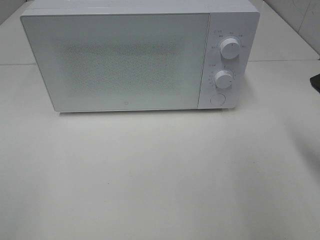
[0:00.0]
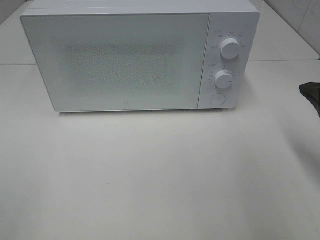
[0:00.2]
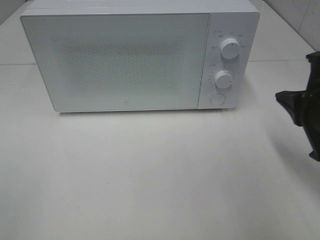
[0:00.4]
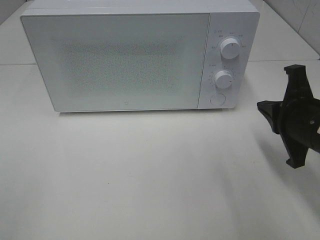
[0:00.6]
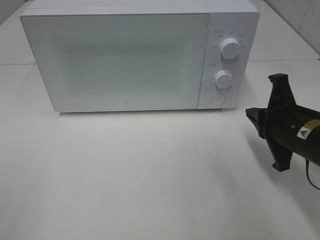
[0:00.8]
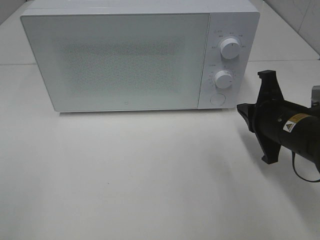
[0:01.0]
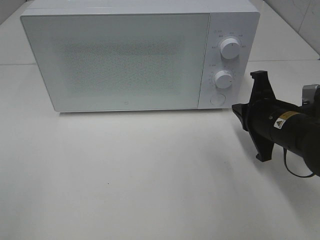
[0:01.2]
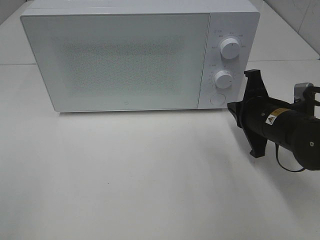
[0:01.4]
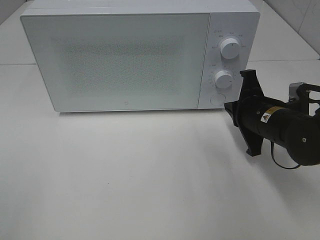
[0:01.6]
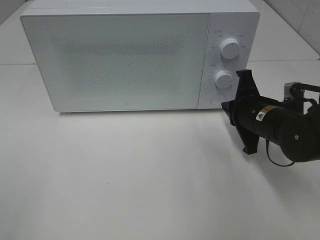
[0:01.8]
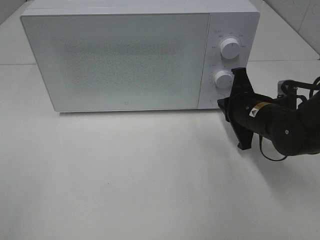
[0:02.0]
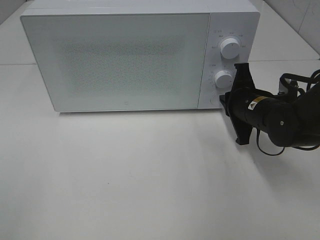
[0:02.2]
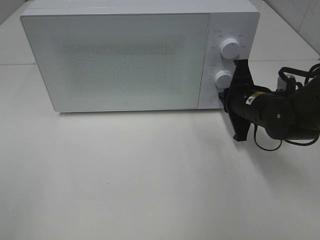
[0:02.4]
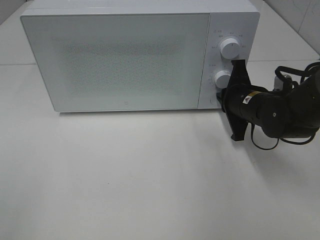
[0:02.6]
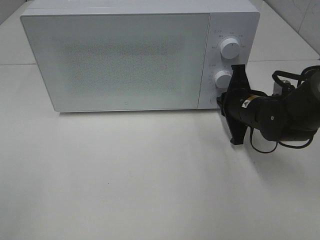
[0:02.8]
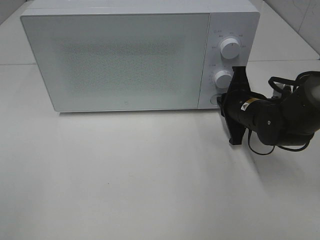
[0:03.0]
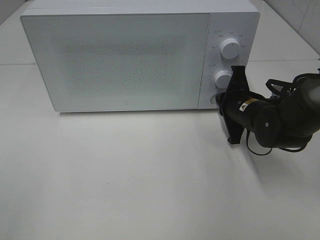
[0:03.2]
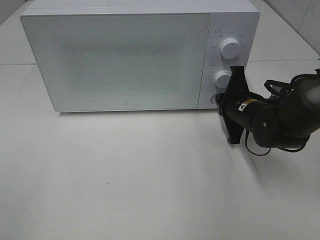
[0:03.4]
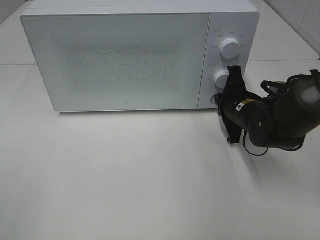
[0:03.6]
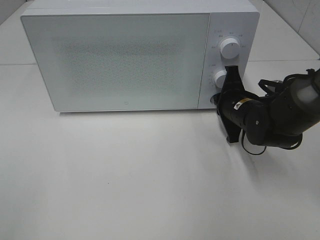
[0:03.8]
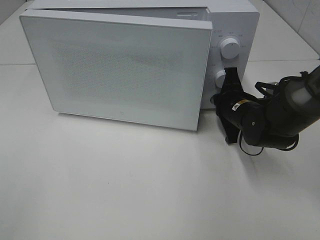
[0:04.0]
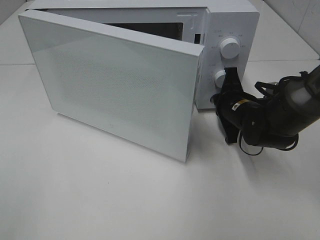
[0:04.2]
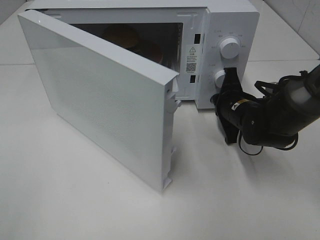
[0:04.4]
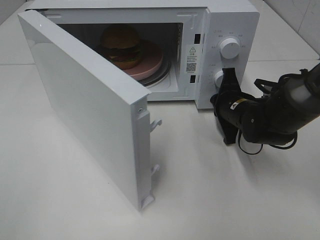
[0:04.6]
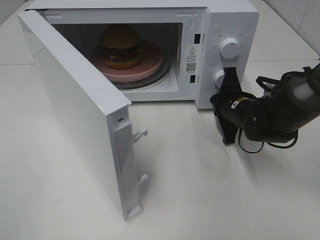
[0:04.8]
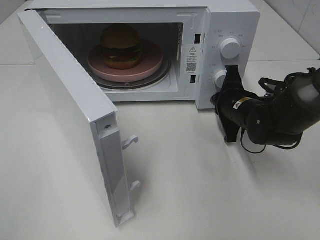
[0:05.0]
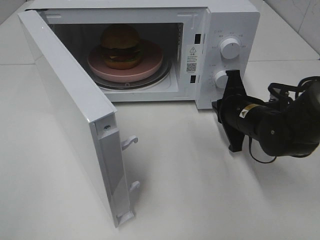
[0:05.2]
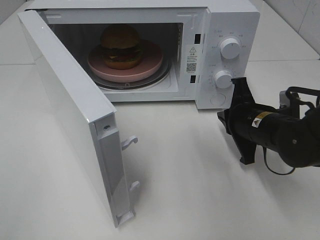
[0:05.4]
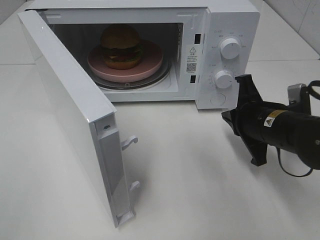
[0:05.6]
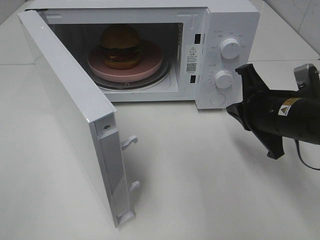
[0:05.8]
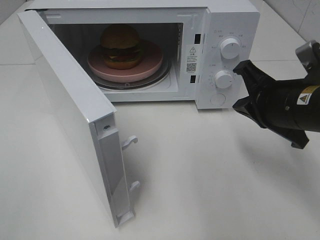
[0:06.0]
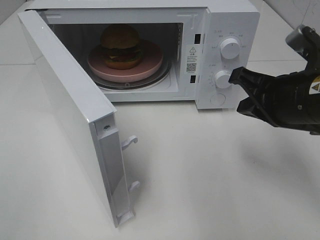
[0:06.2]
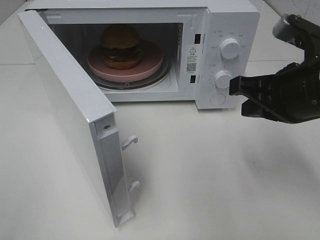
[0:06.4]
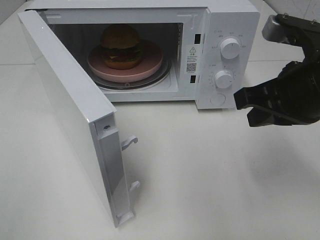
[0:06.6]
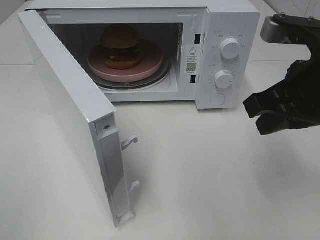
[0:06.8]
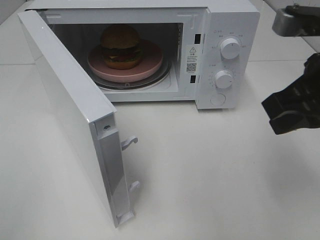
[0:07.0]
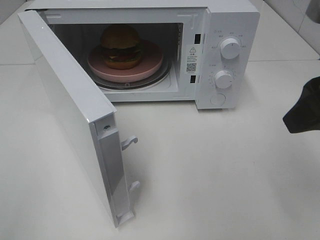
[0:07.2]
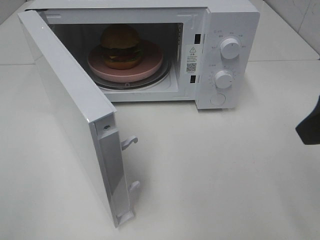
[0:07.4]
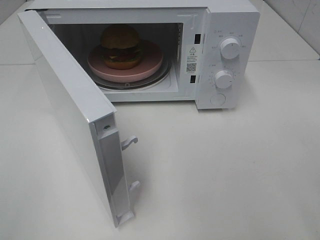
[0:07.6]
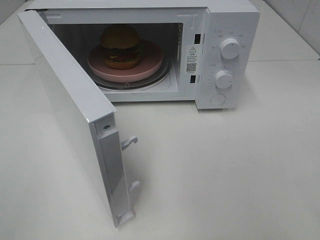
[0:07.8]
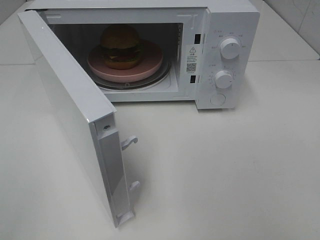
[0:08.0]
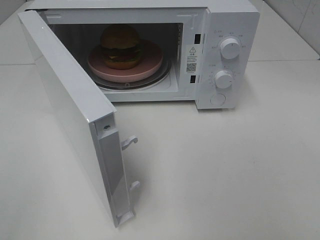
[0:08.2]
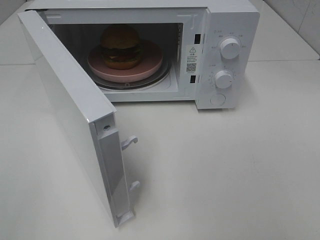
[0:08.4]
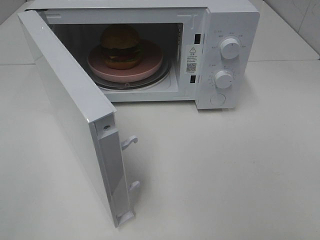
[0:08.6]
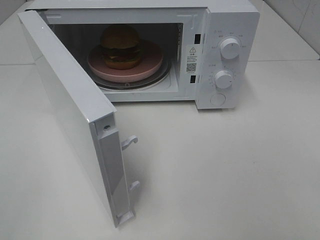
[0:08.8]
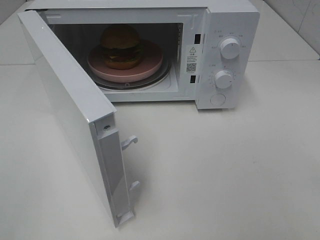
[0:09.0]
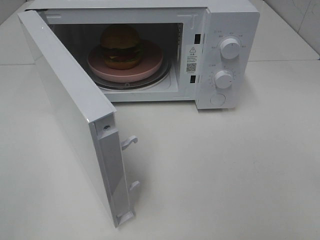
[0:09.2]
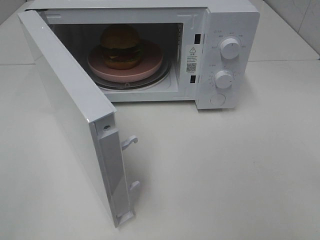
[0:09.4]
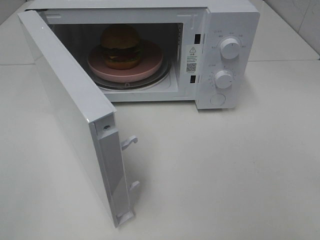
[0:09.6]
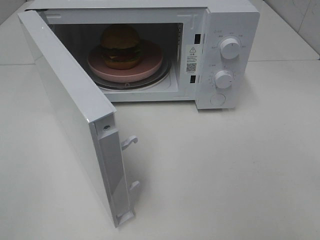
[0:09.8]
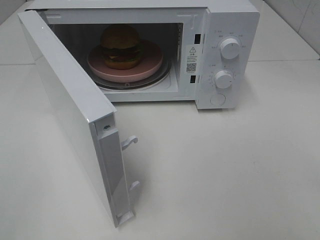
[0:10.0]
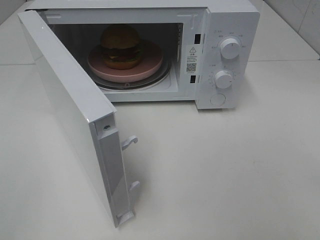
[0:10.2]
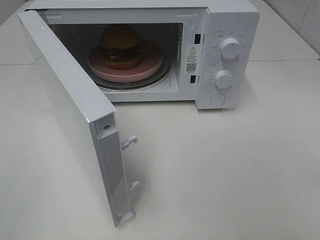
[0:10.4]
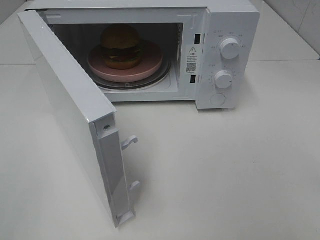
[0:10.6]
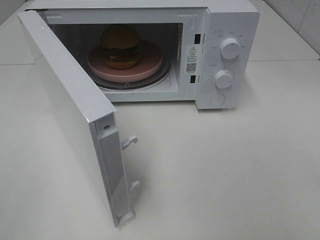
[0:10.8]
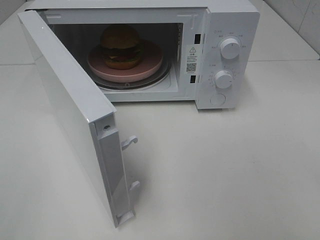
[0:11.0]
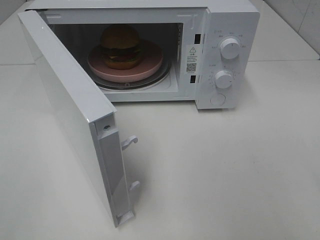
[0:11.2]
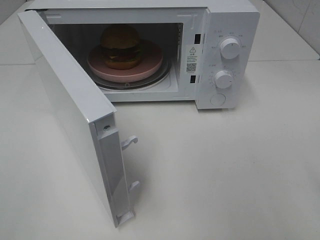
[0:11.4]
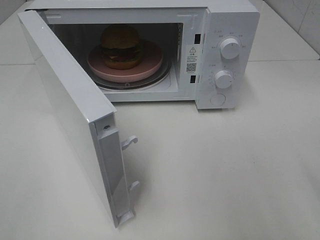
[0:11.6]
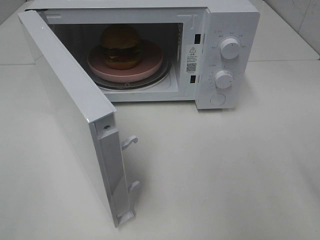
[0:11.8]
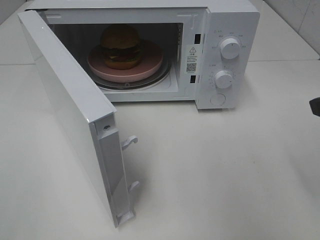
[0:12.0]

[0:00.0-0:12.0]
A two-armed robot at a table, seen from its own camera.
Task of the whole recording: Heat the burger.
Step, 0:00.0 to 0:05.0: Right hand: press the switch.
0:00.0 to 0:01.6: The right gripper goes about 15 cm downward, forward and to the left.
0:01.6 to 0:03.0: The right gripper moves approximately 5 cm.
0:04.4 to 0:06.0: The right gripper goes roughly 15 cm backward and upward.
0:06.0 to 0:07.6: The right gripper is displaced upward and backward by some 20 cm, and opens.
0:09.0 to 0:10.4: The two grippers keep their place.

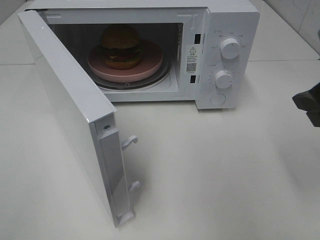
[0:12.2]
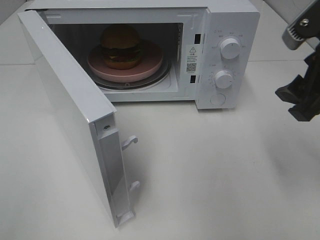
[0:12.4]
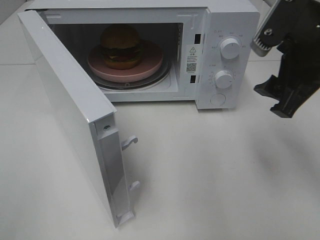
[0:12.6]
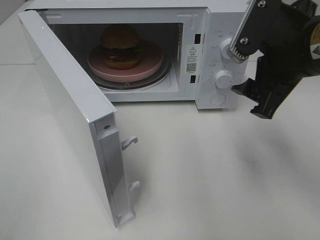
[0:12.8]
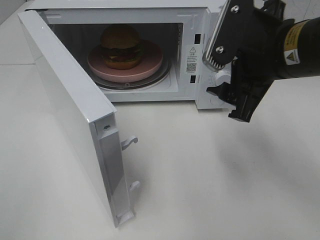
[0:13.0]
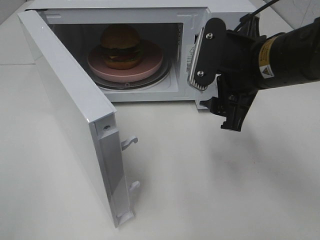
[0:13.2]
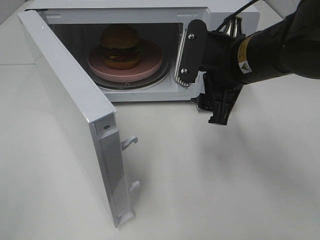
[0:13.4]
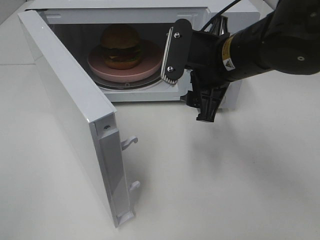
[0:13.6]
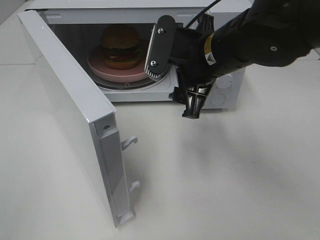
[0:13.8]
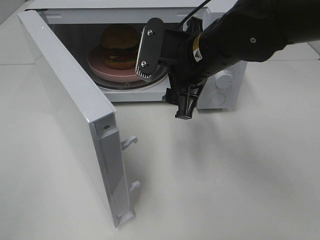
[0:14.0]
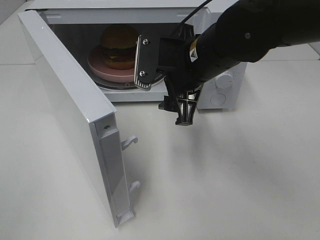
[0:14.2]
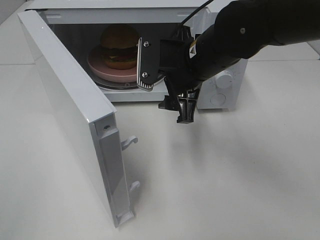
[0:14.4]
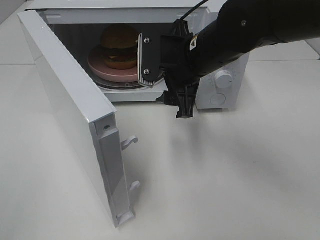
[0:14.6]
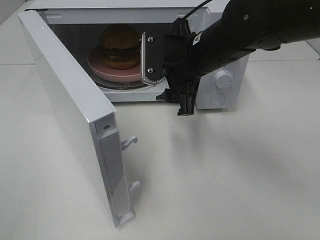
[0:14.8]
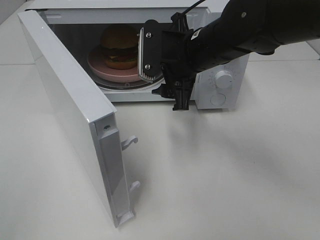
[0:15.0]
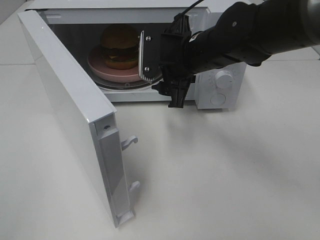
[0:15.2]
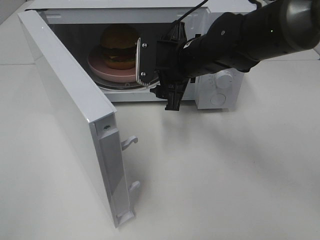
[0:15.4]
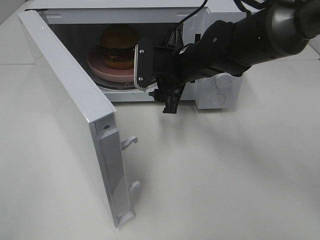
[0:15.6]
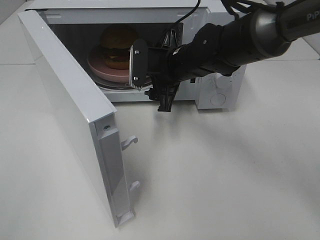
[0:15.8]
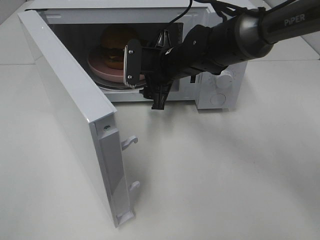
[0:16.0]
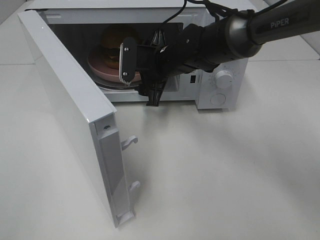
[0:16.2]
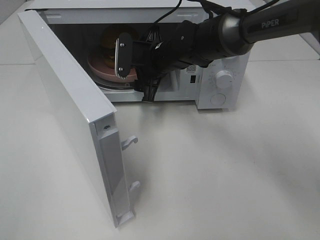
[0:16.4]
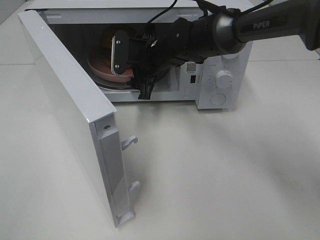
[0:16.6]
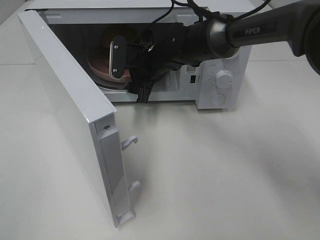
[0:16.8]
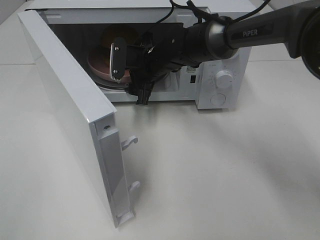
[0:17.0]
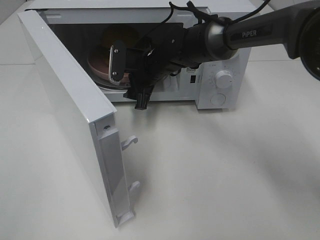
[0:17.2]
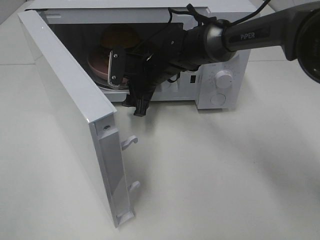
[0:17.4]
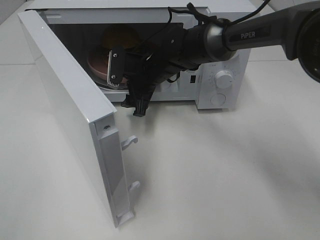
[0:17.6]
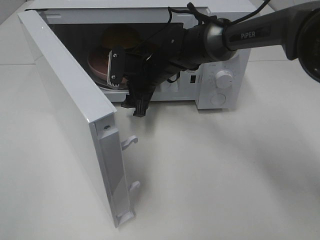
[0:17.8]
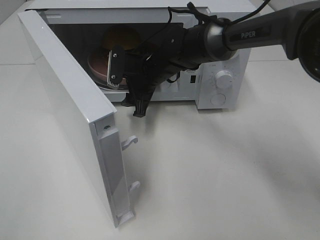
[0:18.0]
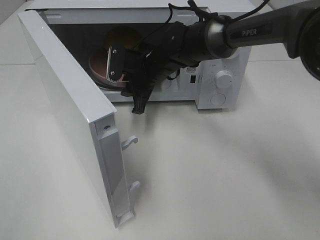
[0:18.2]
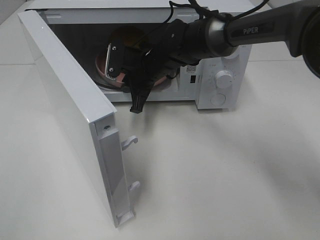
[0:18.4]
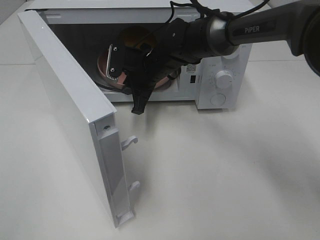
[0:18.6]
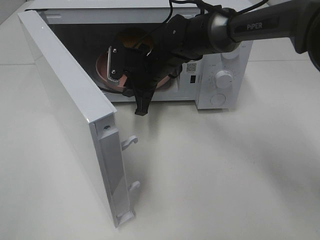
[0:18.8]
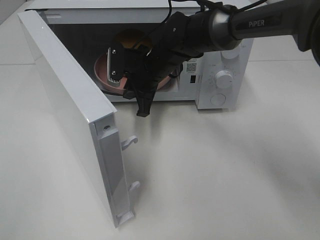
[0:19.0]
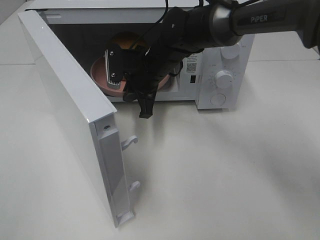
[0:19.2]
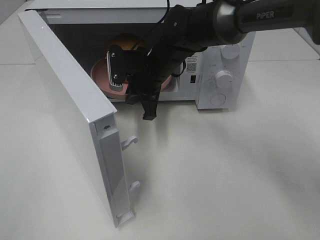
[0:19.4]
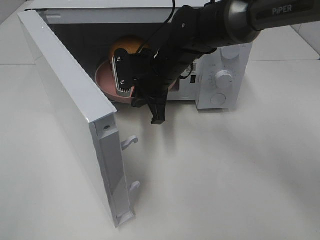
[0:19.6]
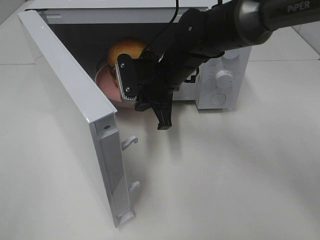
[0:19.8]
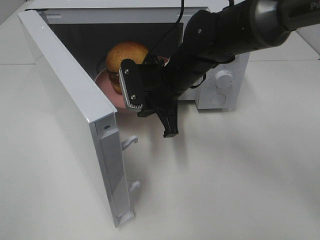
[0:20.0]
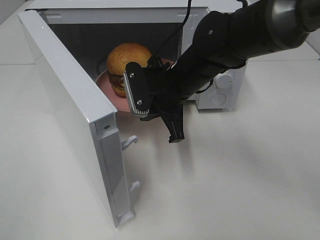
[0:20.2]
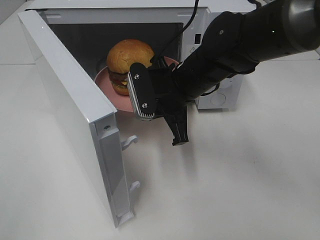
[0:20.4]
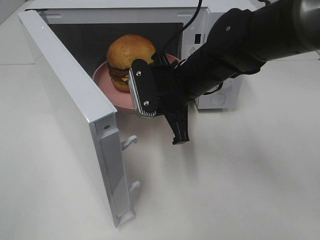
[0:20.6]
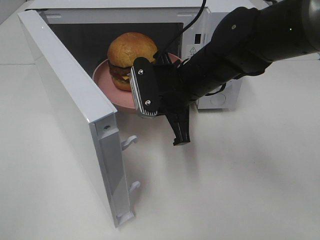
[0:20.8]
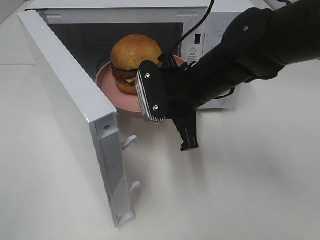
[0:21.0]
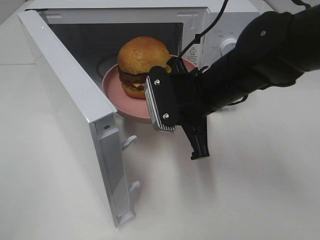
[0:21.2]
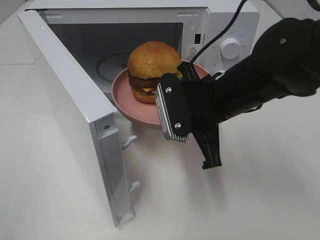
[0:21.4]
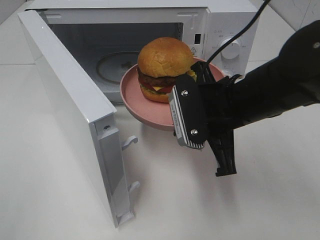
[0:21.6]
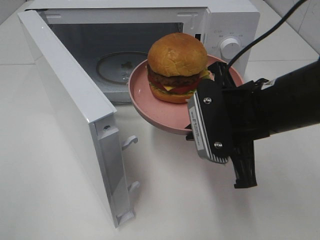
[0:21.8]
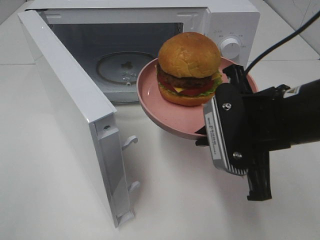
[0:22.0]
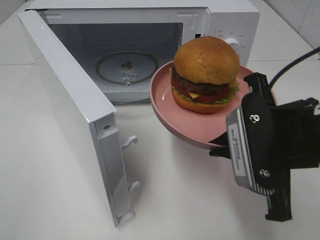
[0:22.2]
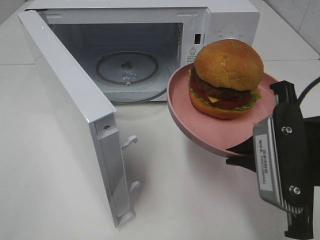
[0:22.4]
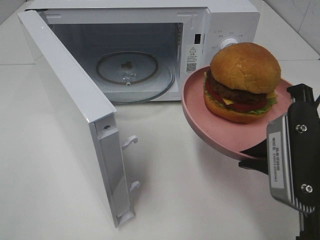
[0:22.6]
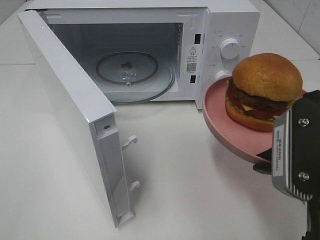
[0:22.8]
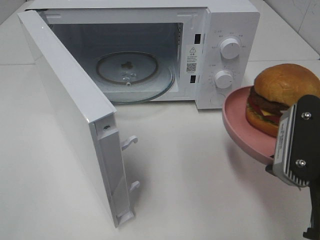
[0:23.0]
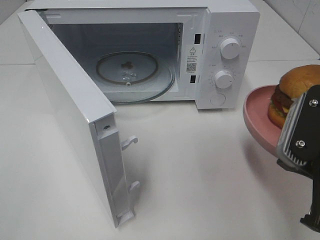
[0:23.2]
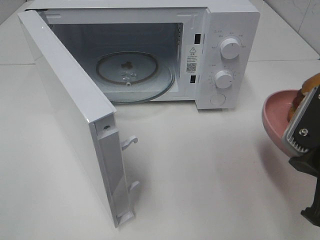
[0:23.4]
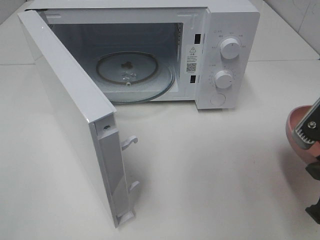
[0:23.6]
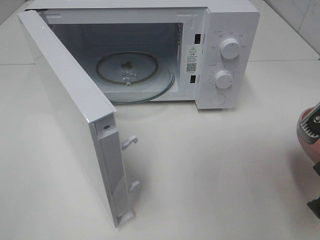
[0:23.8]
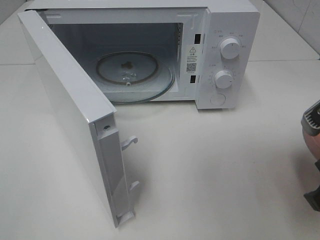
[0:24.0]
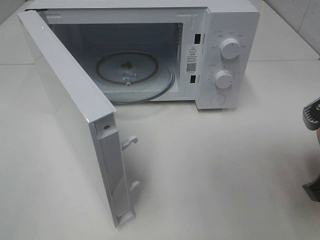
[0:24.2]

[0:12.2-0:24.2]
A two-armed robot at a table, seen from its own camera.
Task of the whole recording: Heat the burger.
Step, 0:12.2 to 0:18.4: Right hand: grab the plate with the hamburger.
0:12.2 to 0:13.8: The right gripper shifts about 20 cm to the left and forward.
0:13.8 to 0:15.2: The right gripper goes about 5 cm forward.
0:15.2 to 0:16.6: The right gripper goes about 10 cm forward and to the left.
0:16.6 to 0:18.2: The right gripper closes.
0:18.2 to 0:19.8: The right gripper is displaced backward by approximately 5 cm.
0:19.8 to 0:21.2: The right gripper travels backward and to the right by roughly 10 cm.
0:21.2 to 0:22.6: The right gripper moves backward and to the right, some 20 cm.
0:22.6 to 0:24.2: The right gripper moves roughly 5 cm.
